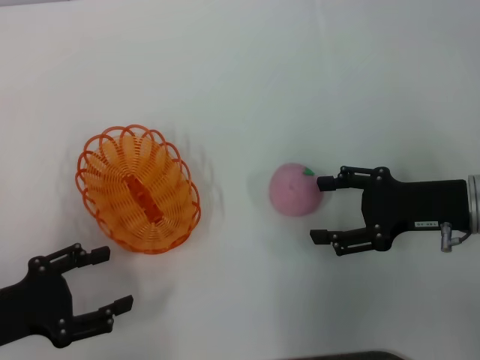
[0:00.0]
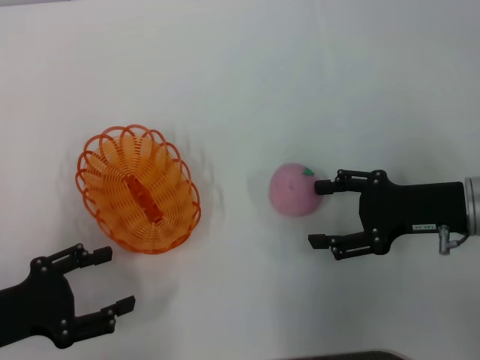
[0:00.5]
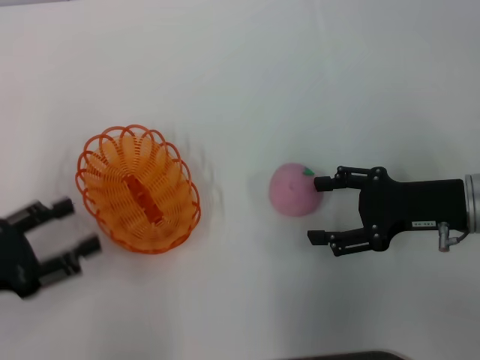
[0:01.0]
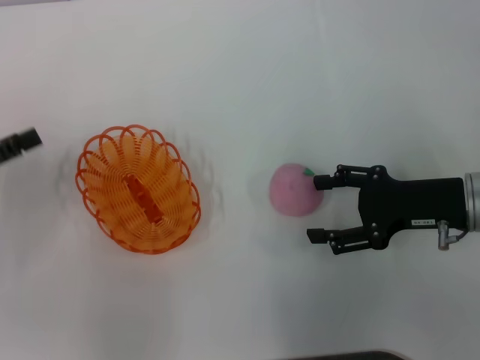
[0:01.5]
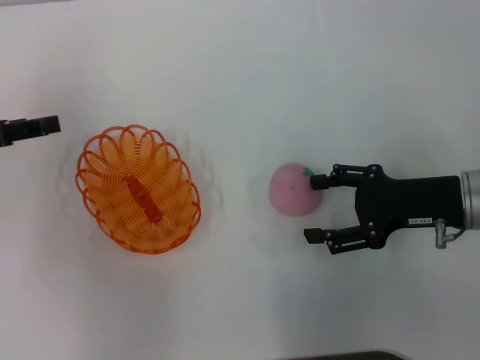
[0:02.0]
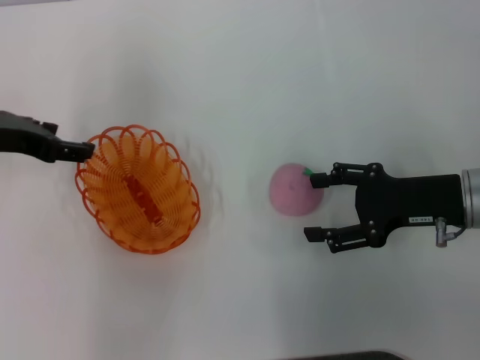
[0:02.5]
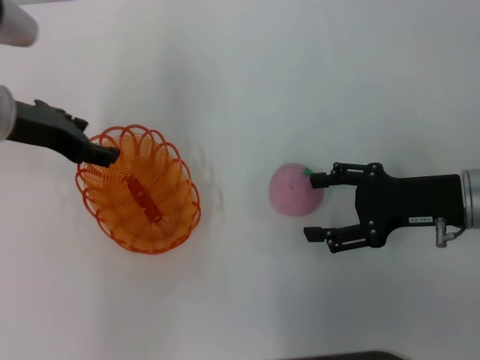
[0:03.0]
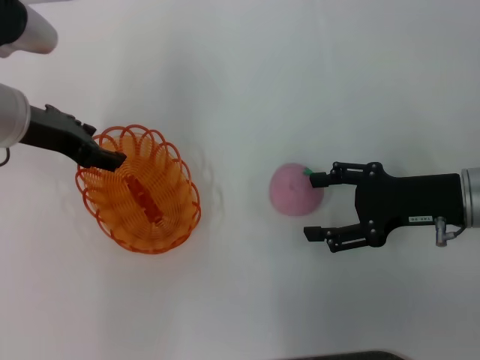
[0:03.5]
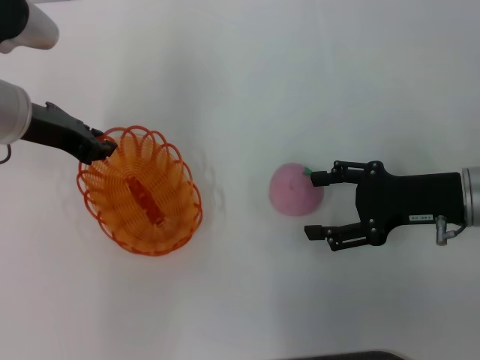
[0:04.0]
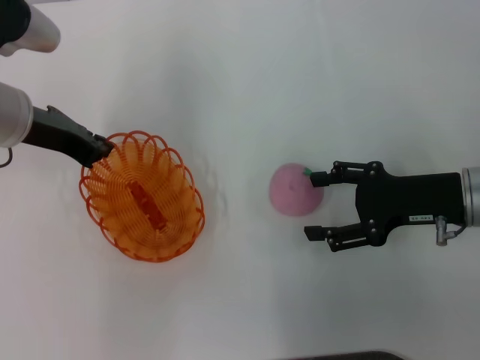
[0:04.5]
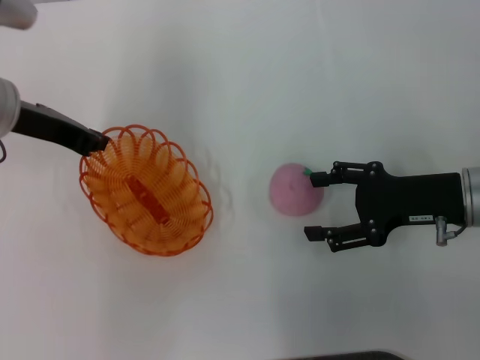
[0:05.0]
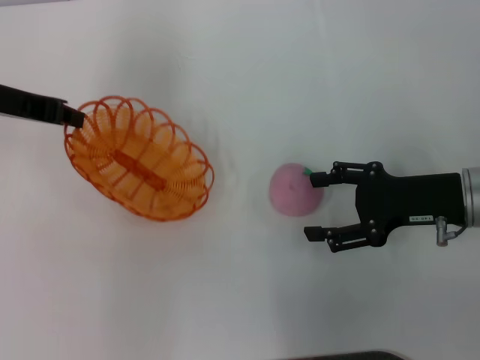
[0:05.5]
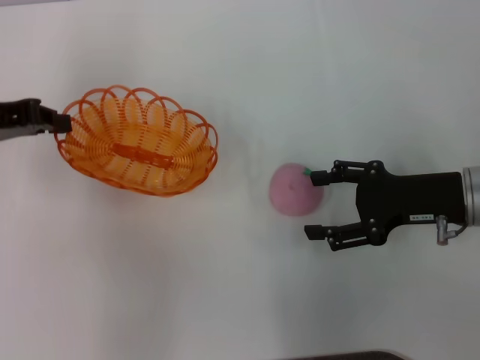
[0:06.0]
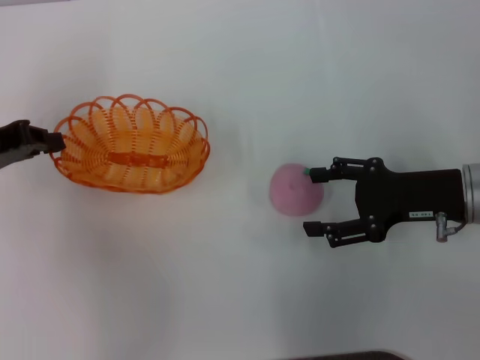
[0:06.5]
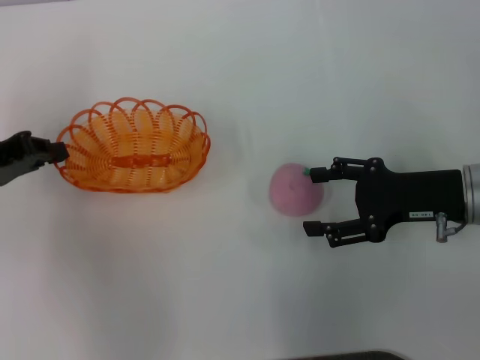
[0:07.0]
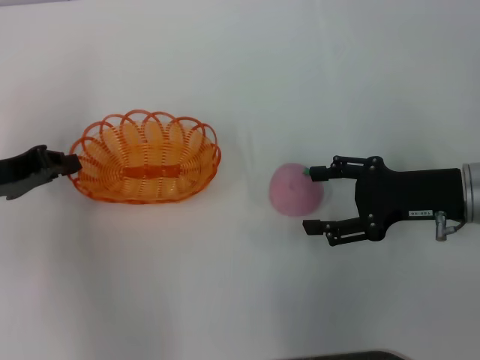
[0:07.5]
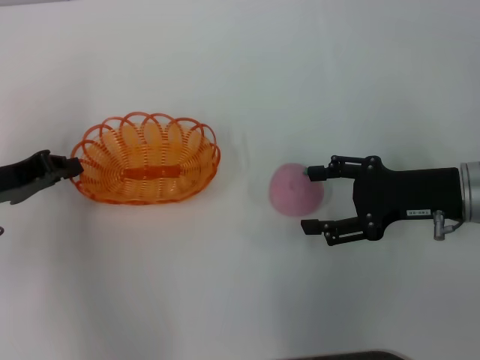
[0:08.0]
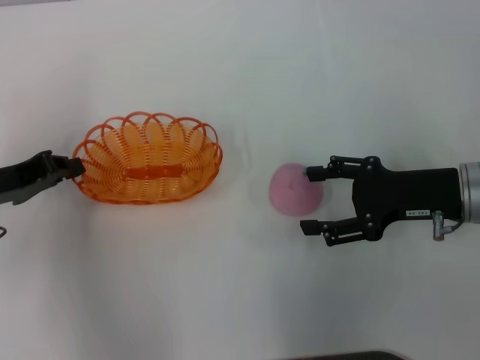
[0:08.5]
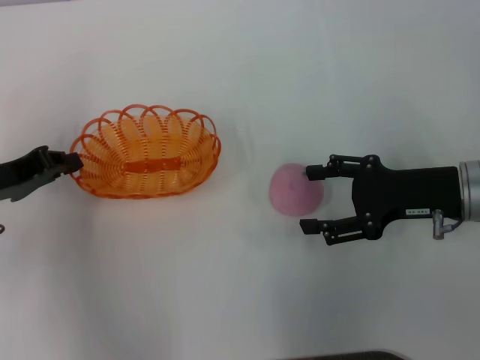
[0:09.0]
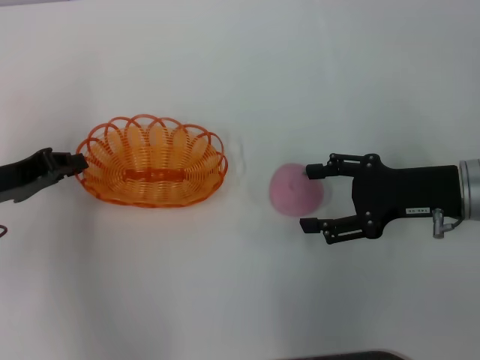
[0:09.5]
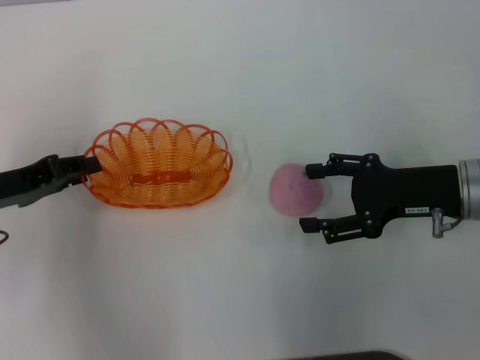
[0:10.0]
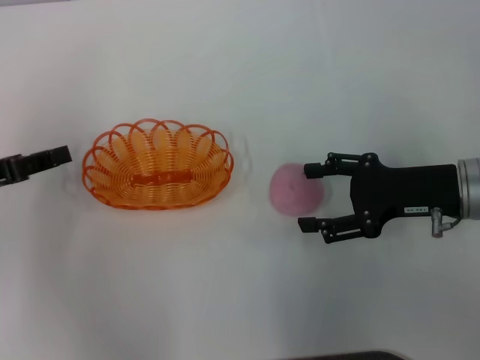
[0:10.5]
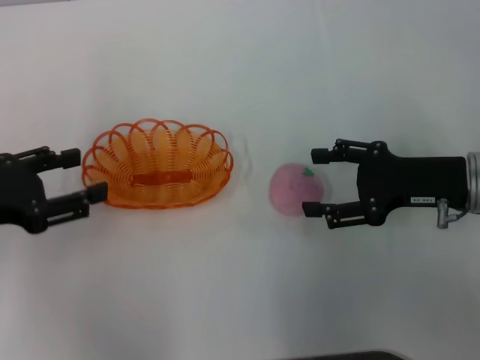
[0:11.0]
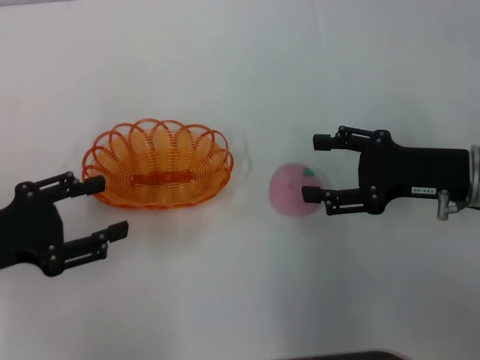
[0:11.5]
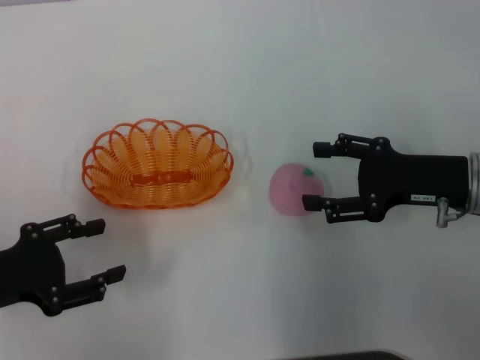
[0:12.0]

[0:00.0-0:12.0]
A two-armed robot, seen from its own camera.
Step, 0:00.0 to 0:05.0: Pick up the basket with the left gripper.
Step, 0:05.5 to 0:10.5: Place the basket in the center of view with the left gripper.
0:00.0 to 0:02.0: The left gripper moves forward and upward, some 15 cm.
0:02.0 to 0:04.0: The left gripper moves to the right and forward, about 10 cm, and closes.
0:04.0 to 0:06.0: The left gripper shifts about 5 cm to the left, and closes up.
0:06.0 to 0:08.0: The left gripper moves downward and backward, approximately 10 cm.
0:08.0 to 0:10.0: Both grippers stay about where they are.
0:10.0 to 0:12.0: The left gripper is displaced backward by approximately 5 cm, and opens up.

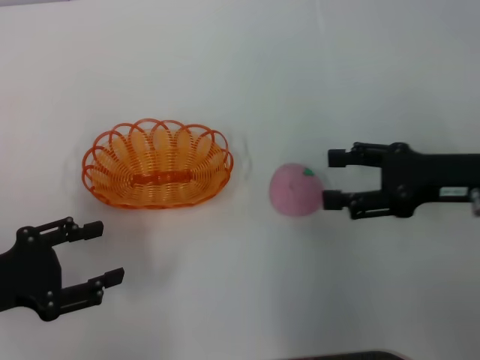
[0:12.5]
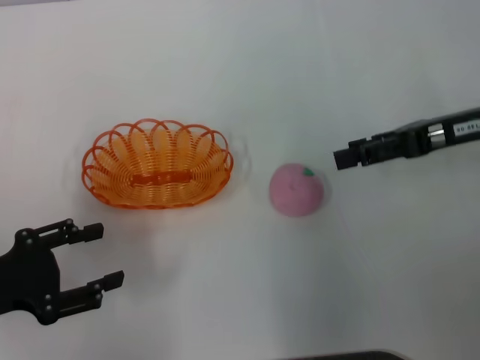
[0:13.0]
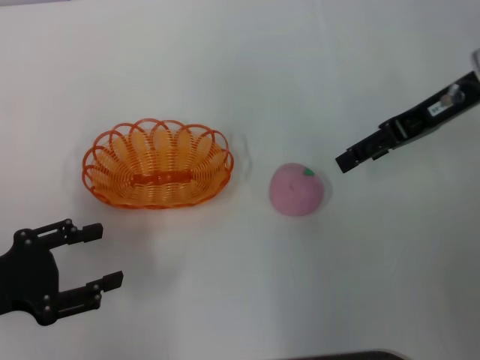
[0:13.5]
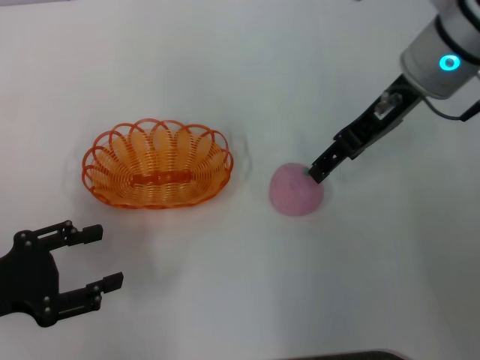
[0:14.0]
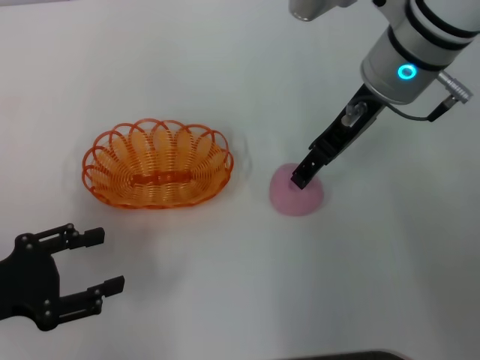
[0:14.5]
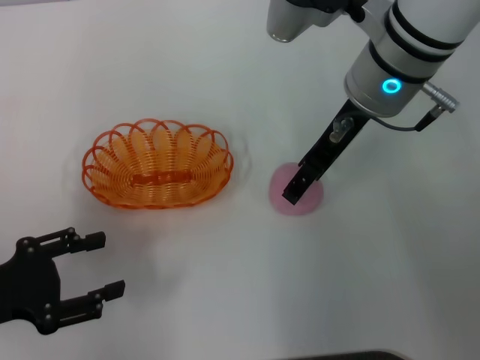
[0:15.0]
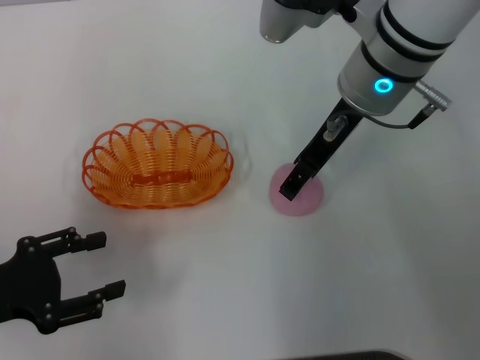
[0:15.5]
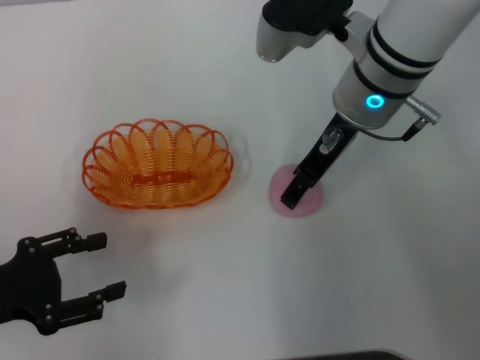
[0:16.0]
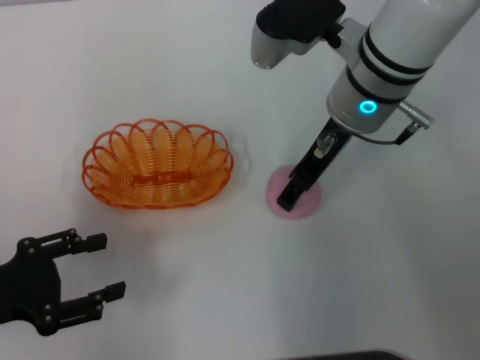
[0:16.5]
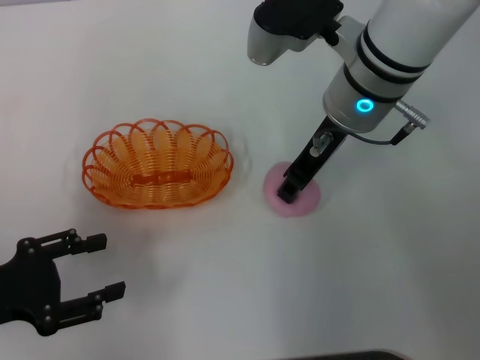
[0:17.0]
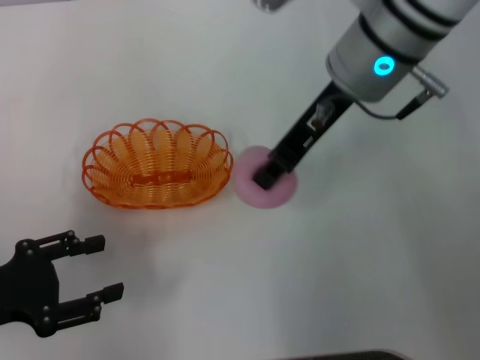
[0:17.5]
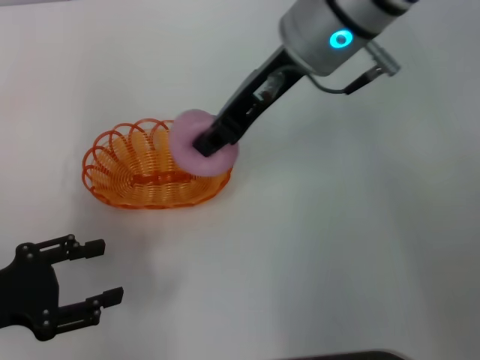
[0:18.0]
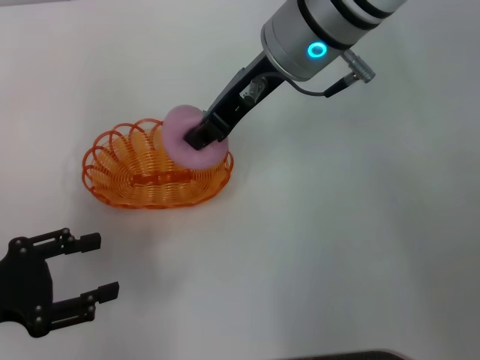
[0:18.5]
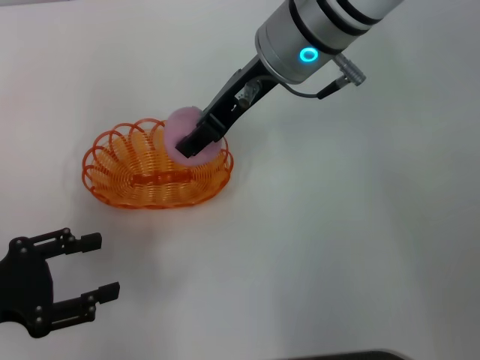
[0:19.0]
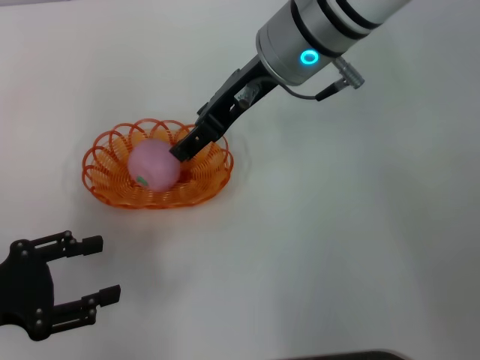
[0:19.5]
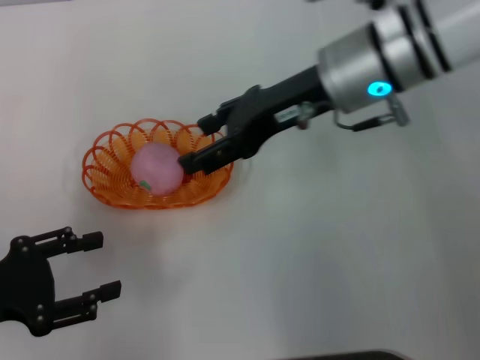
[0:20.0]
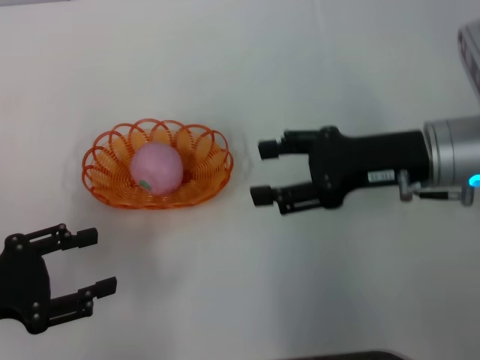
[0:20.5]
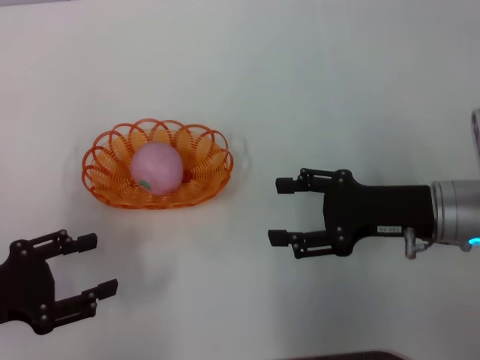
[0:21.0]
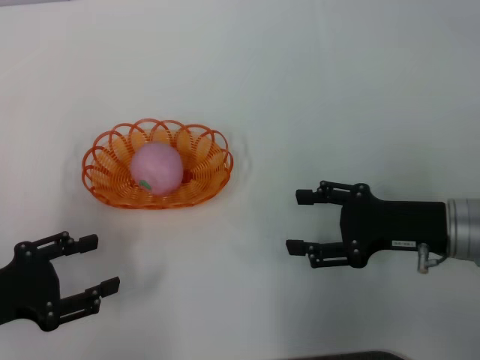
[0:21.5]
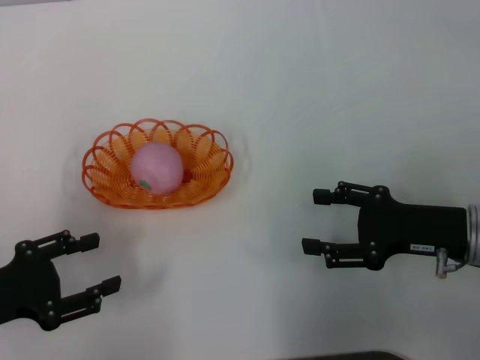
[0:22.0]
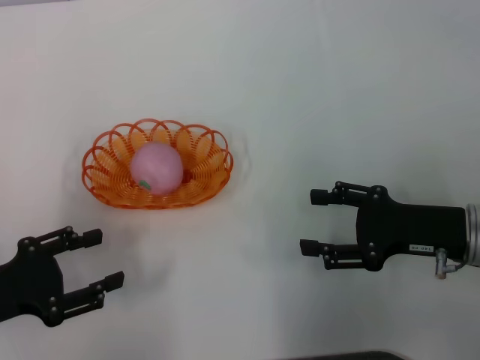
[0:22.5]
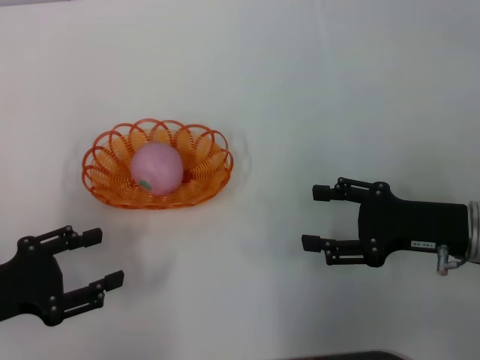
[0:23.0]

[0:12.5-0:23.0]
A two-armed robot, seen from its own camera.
Step, 0:12.5 to 0:17.5: Pick up the peach with the right gripper.
Step, 0:18.0 to 0:19.5: Place the peach into the basket with the right gripper.
0:12.5 to 0:14.5: The right gripper heads to the left, forward and upward, covering about 20 cm.
0:14.5 to 0:16.5: The grippers make only small movements.
0:16.5 to 0:19.0: The right gripper changes place by roughly 5 cm, and closes.
0:19.0 to 0:21.0: The right gripper heads to the right, downward and backward, covering approximately 25 cm, and opens up.
0:21.0 to 0:23.0: There are only small adjustments of the grippers.

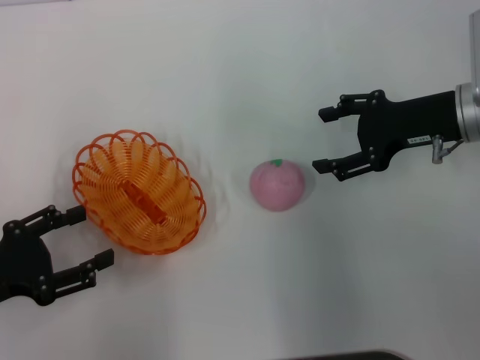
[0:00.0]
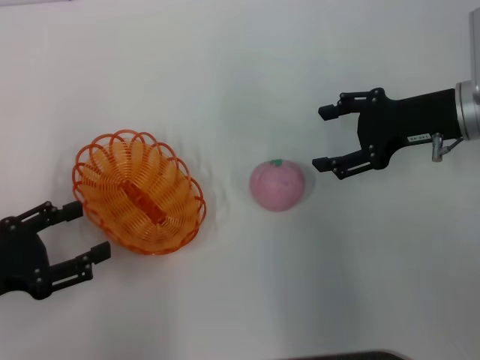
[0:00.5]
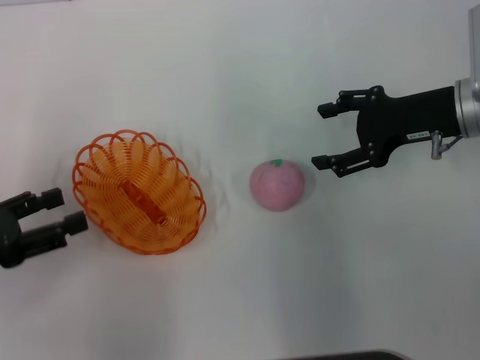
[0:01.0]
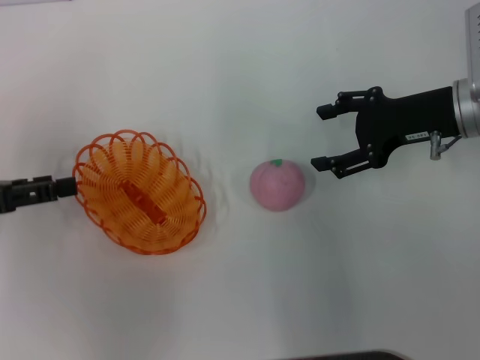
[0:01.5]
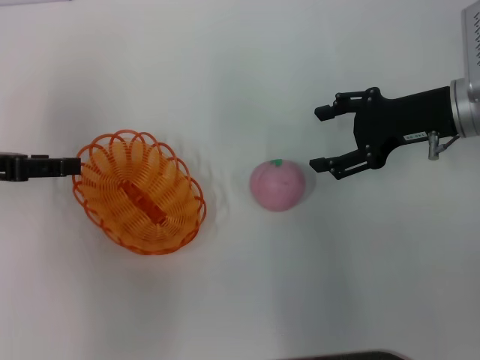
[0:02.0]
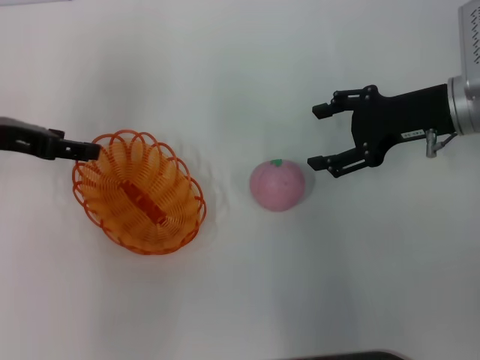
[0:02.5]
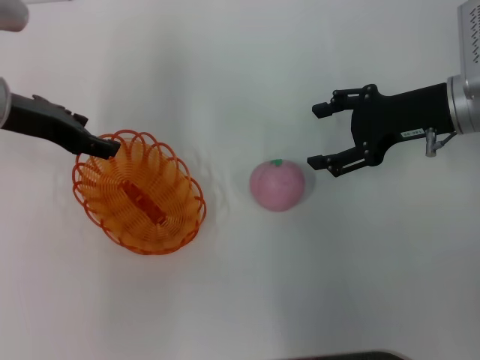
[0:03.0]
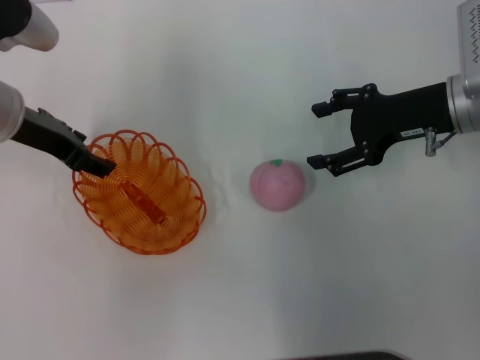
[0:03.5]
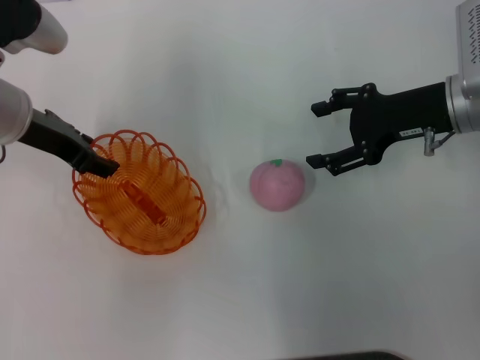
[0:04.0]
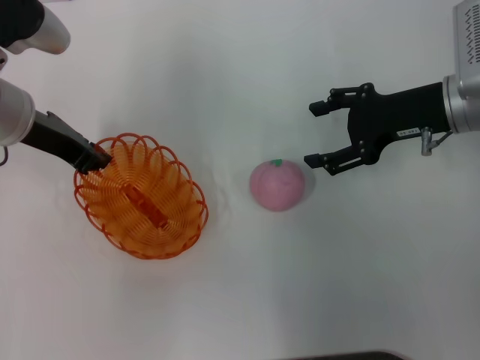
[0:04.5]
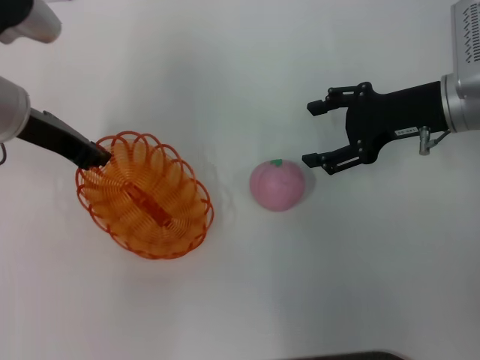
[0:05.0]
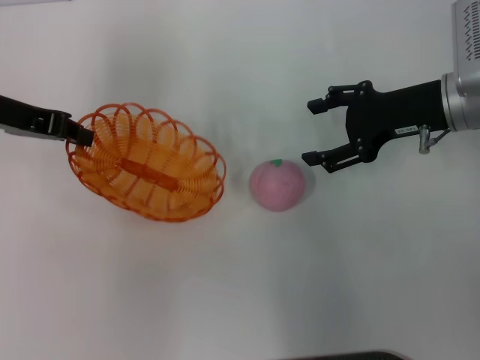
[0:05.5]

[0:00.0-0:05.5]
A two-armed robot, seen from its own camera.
0:00.0 to 0:02.0: The left gripper shifts roughly 15 cm forward and upward.
0:02.0 to 0:03.5: The left gripper heads to the right and forward, covering about 10 cm.
0:03.5 to 0:05.5: The left gripper closes up.
